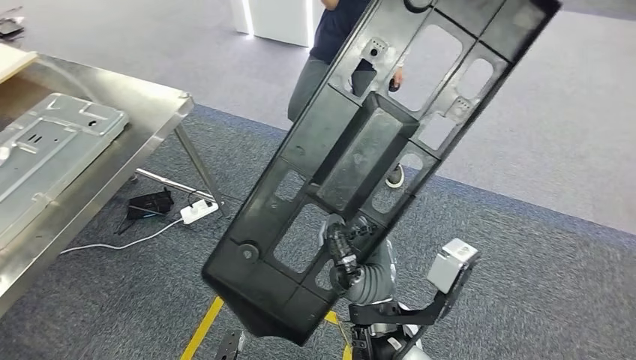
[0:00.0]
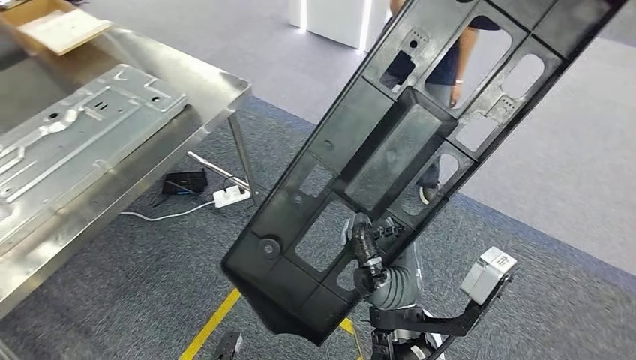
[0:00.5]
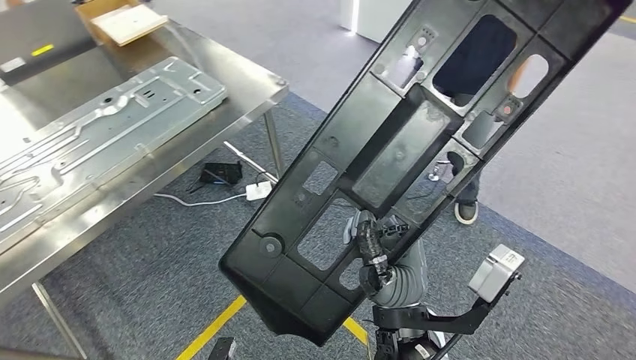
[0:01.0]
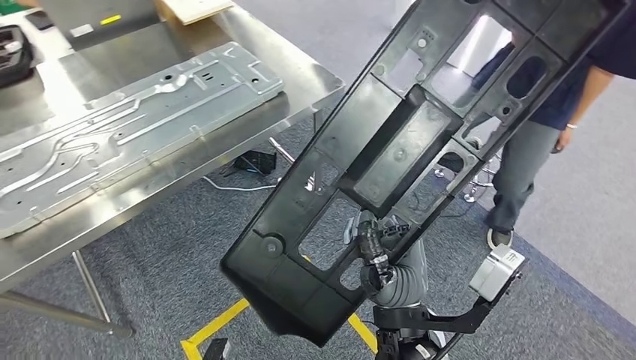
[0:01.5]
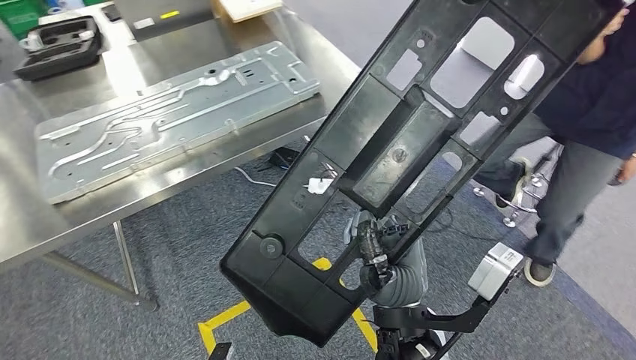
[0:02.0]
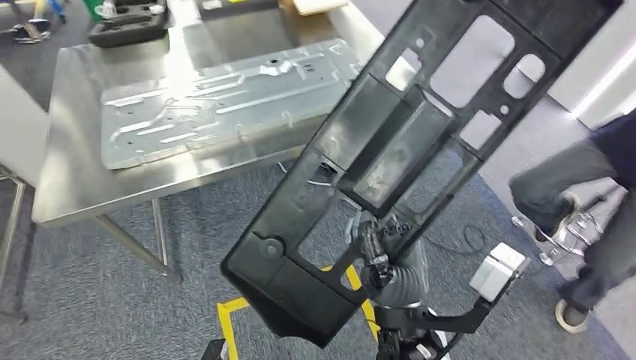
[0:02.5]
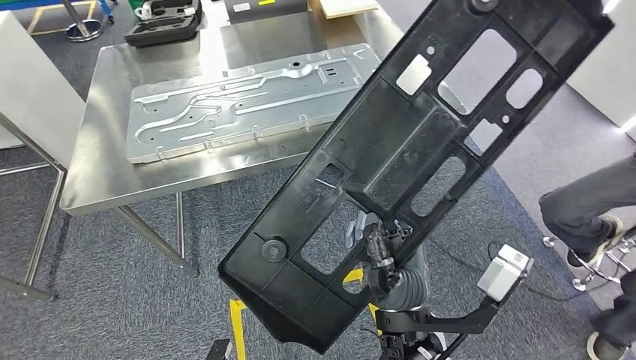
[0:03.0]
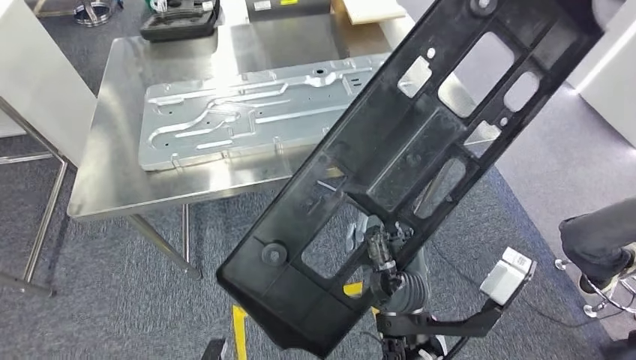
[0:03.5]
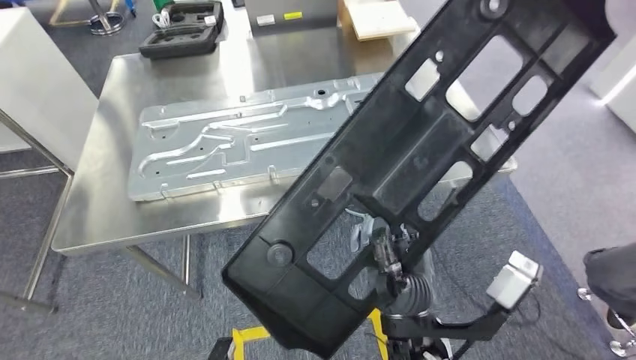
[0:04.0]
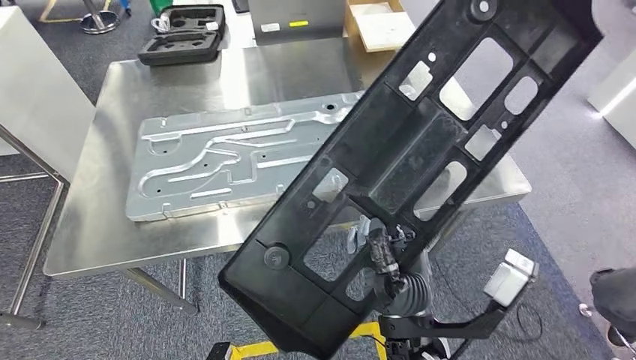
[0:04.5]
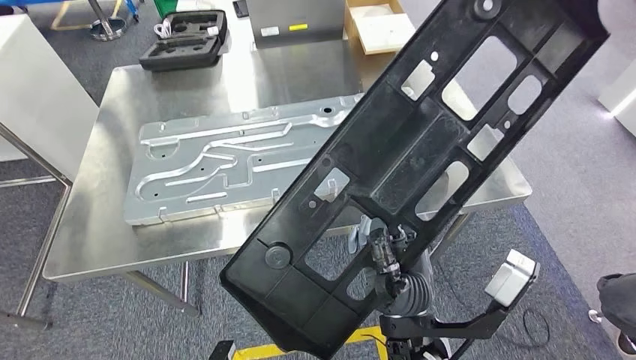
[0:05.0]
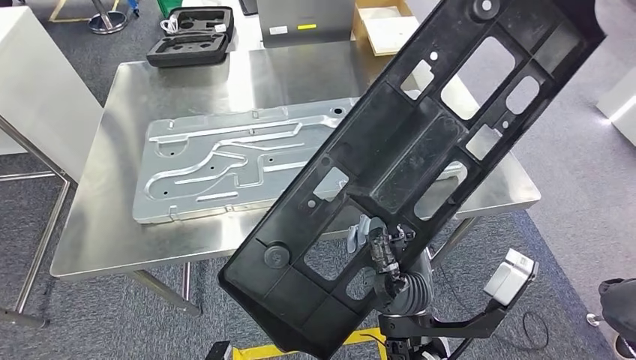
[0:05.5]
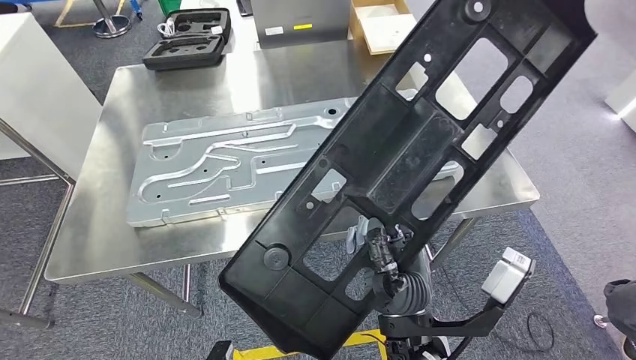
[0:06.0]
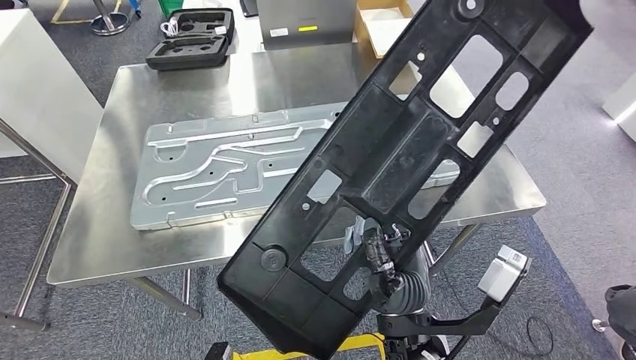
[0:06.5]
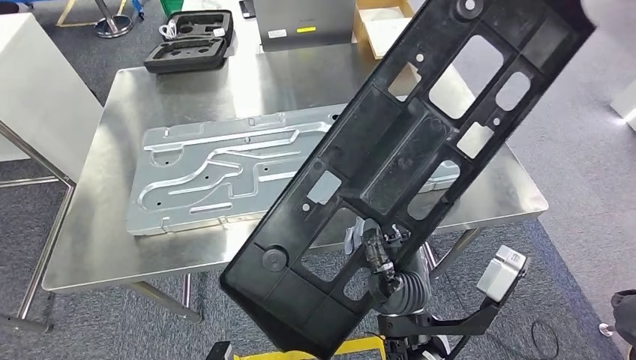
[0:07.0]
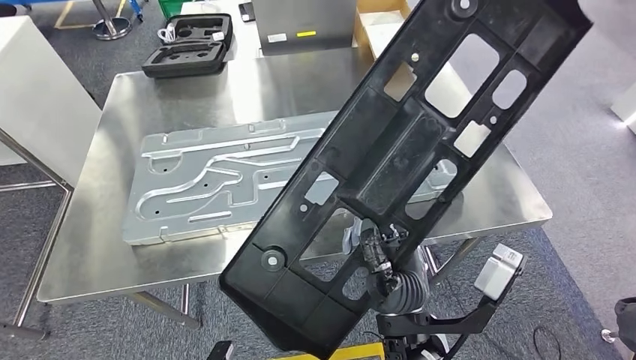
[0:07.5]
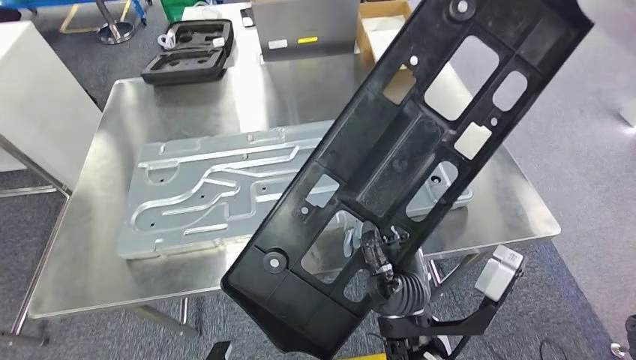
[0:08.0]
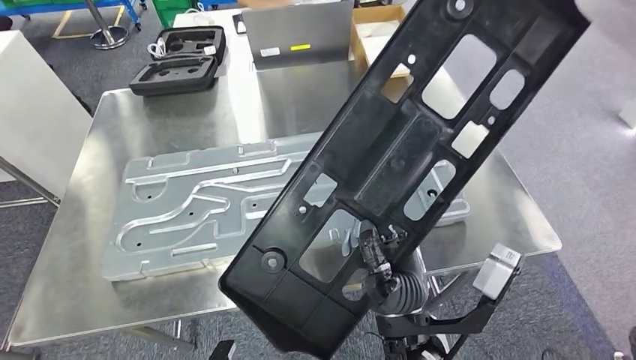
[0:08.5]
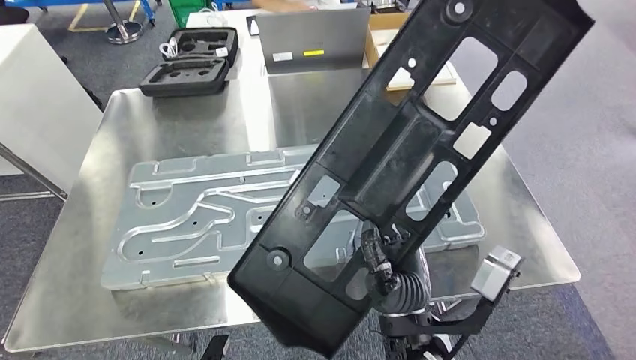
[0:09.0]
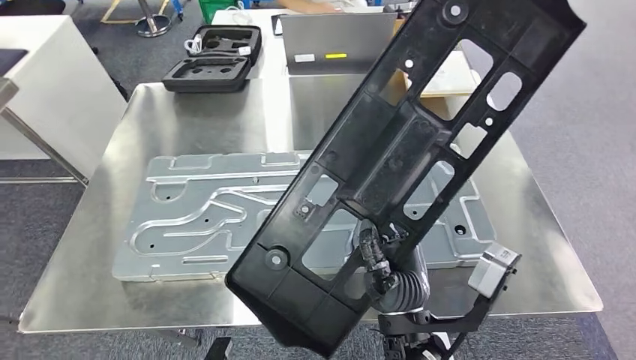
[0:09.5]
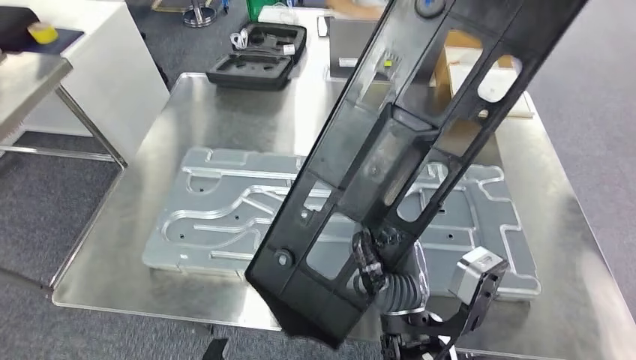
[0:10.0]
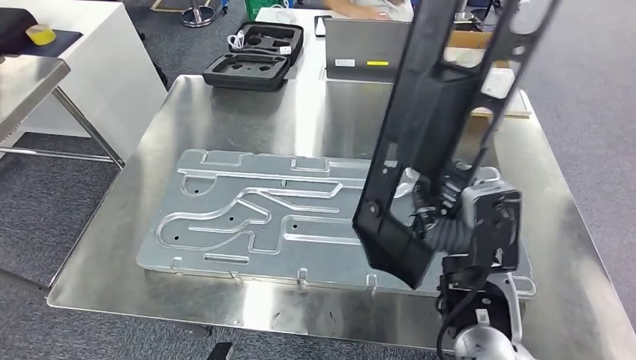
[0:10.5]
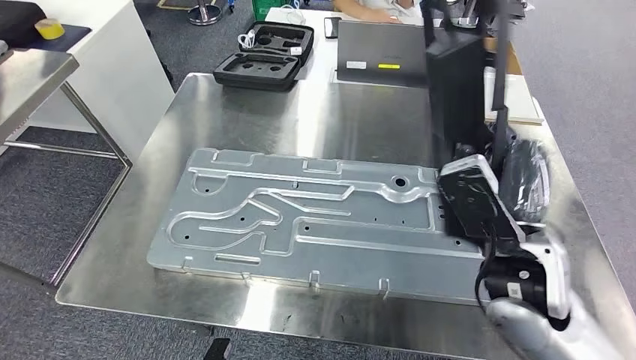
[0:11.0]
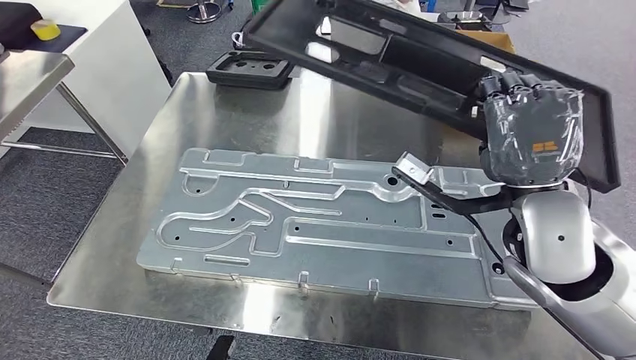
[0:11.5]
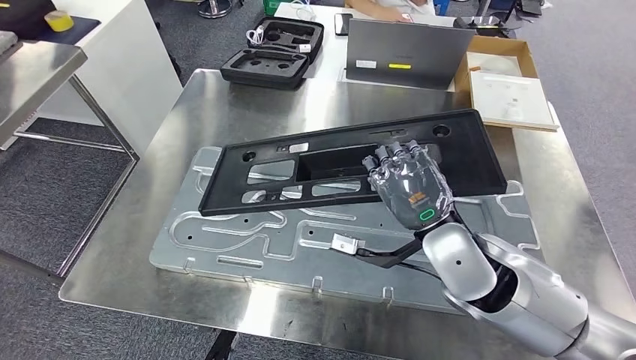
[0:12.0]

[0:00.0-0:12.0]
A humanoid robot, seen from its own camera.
Step, 0:00.0 to 0:05.0: Move the large material to the workbench.

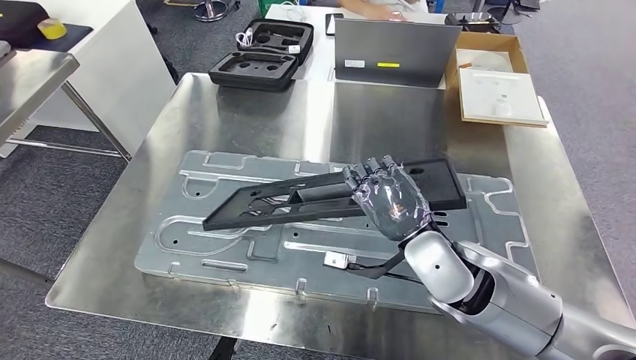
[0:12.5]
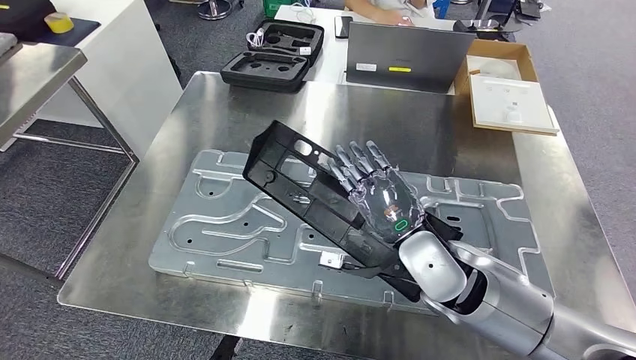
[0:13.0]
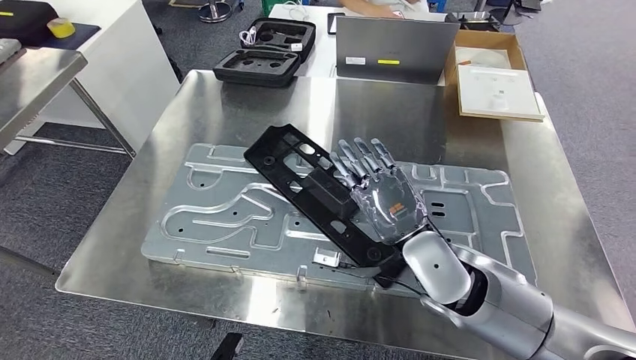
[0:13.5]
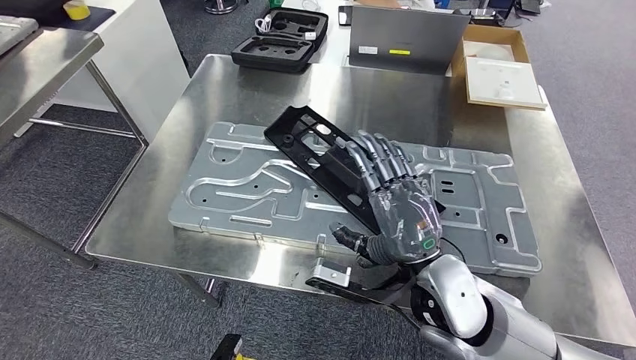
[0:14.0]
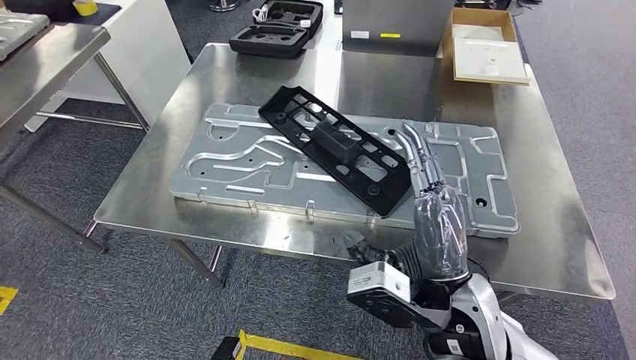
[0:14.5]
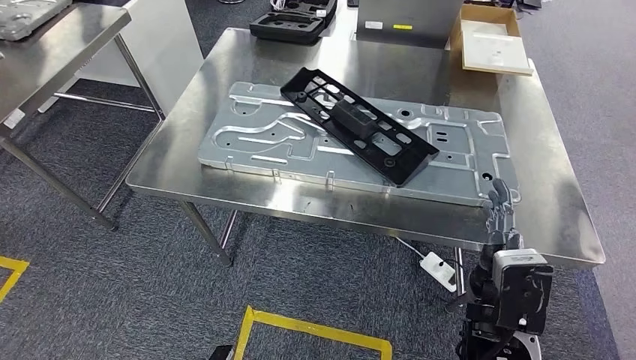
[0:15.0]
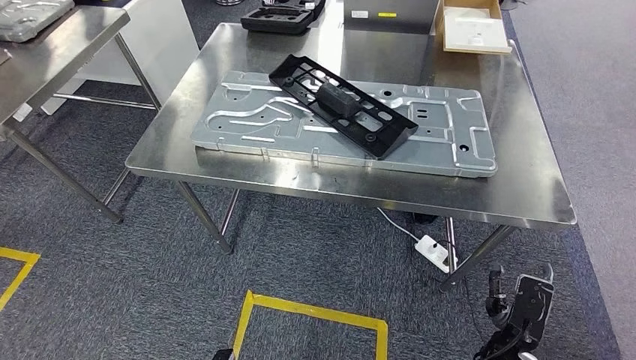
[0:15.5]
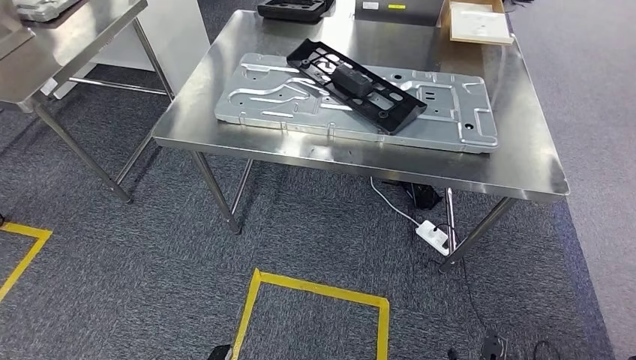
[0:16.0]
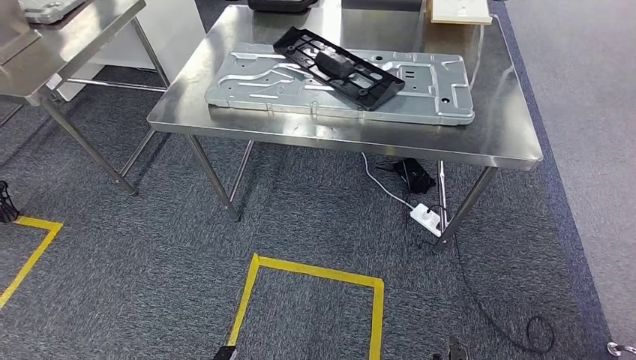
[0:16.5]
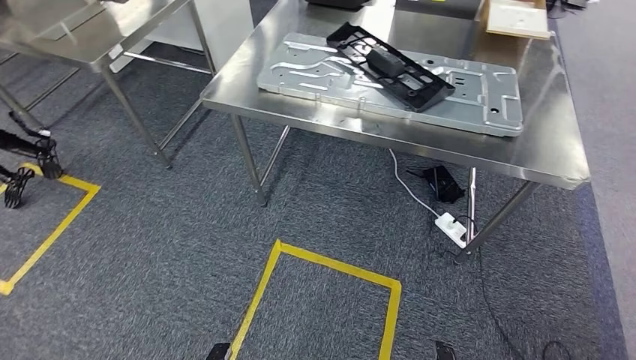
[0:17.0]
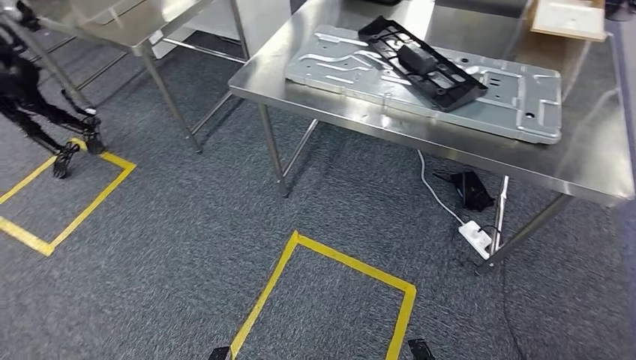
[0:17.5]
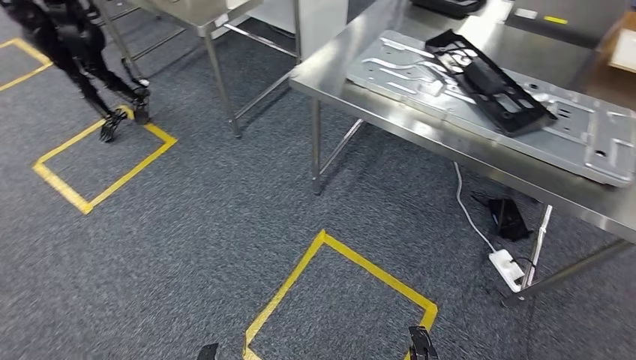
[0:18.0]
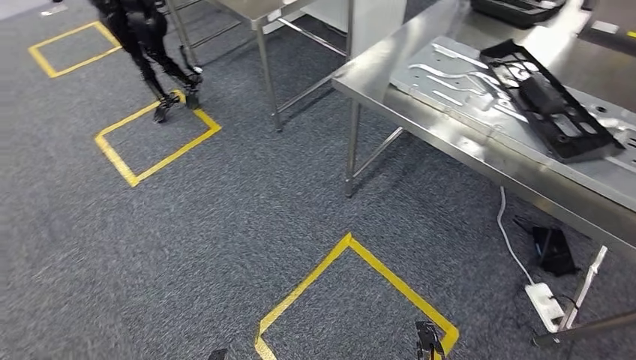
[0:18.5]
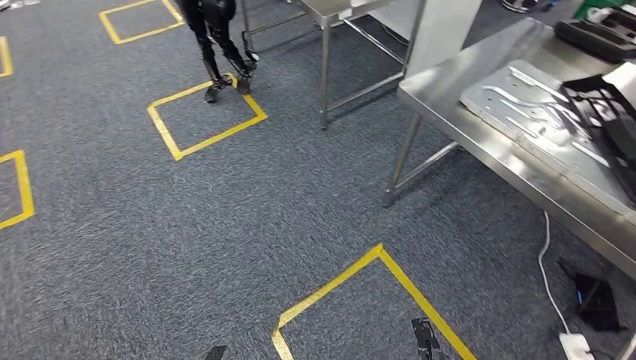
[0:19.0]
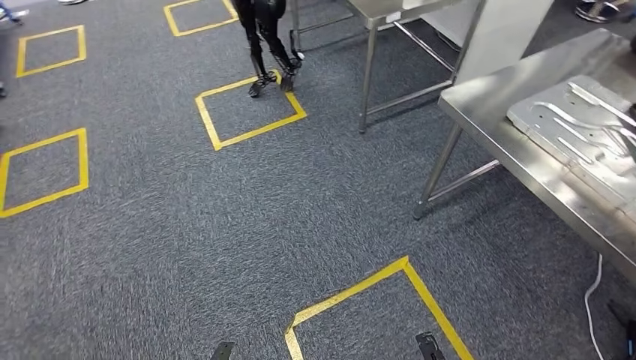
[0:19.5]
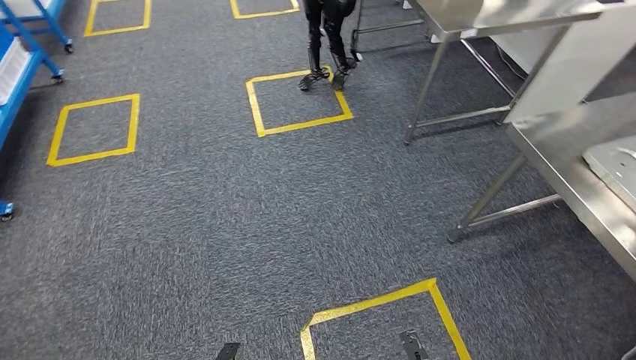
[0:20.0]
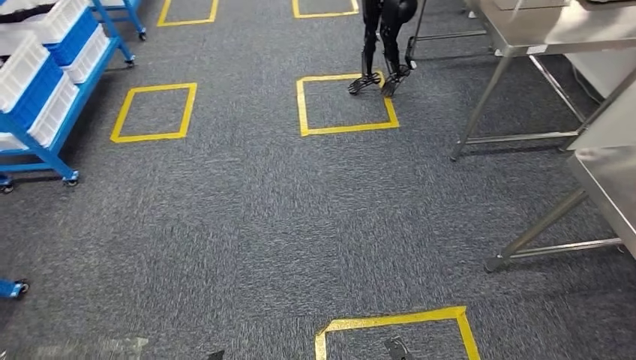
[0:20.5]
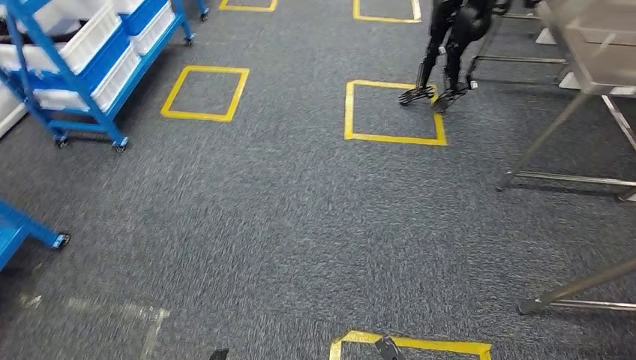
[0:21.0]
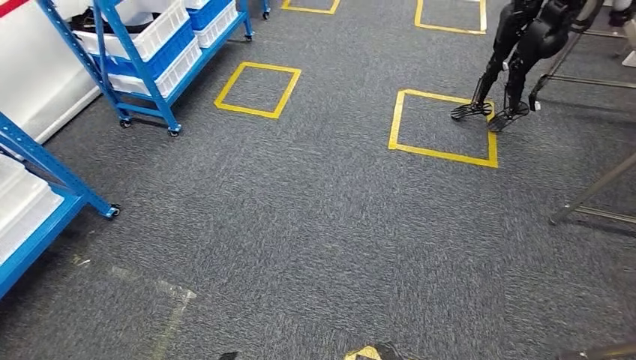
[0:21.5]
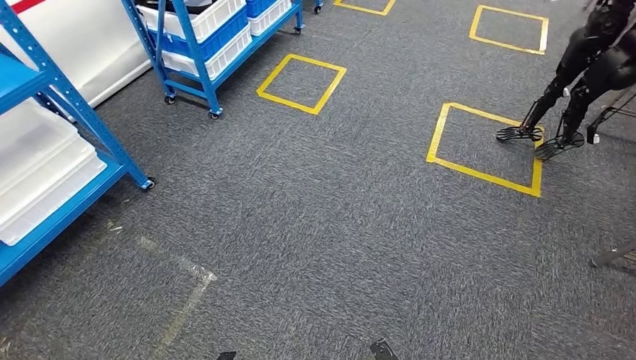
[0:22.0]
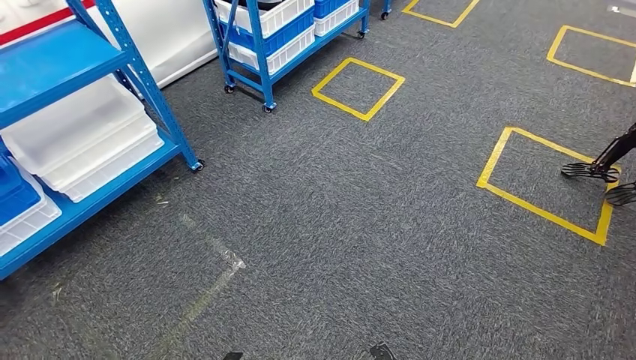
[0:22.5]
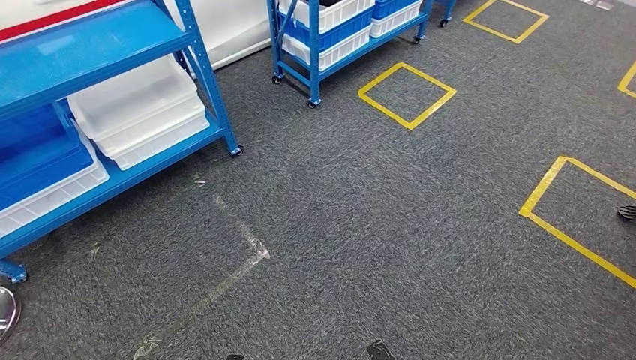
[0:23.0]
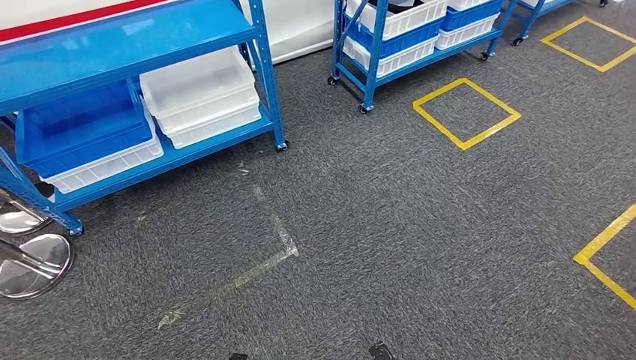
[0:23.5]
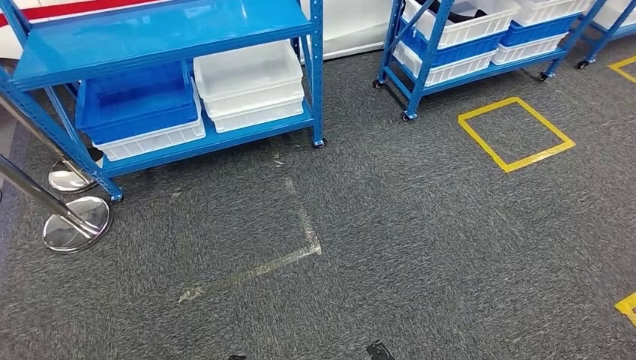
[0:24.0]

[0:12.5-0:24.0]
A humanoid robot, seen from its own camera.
Step, 0:12.5 to 0:15.0: Insert the large material into the corresponding slot on the workbench.
